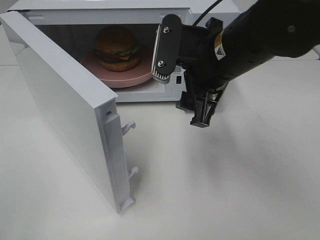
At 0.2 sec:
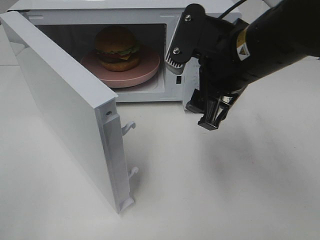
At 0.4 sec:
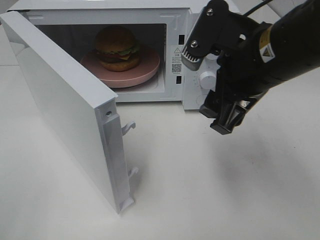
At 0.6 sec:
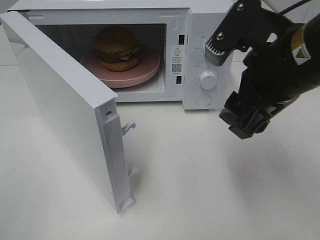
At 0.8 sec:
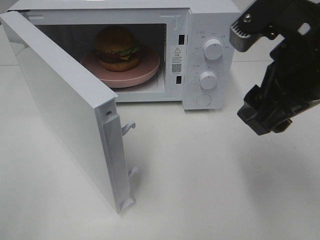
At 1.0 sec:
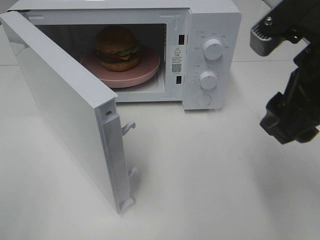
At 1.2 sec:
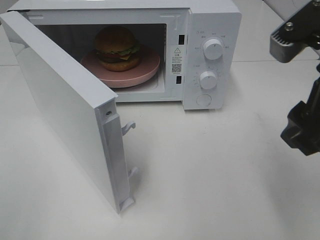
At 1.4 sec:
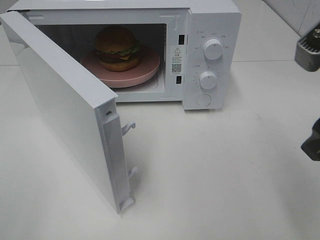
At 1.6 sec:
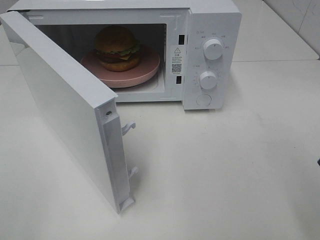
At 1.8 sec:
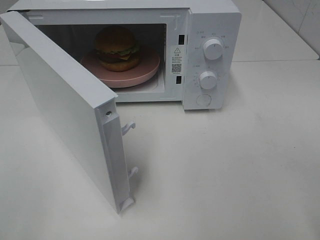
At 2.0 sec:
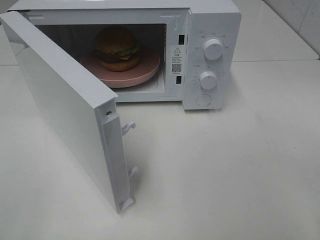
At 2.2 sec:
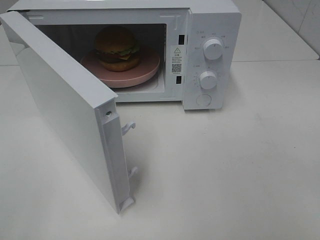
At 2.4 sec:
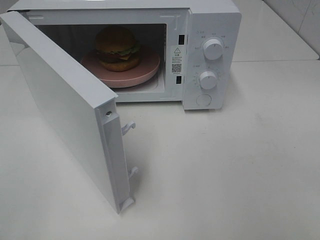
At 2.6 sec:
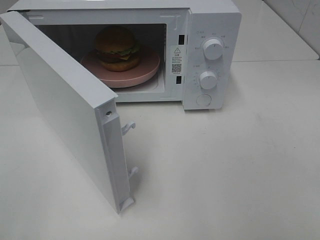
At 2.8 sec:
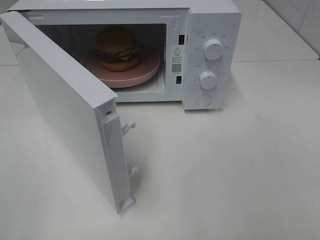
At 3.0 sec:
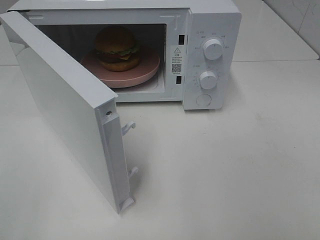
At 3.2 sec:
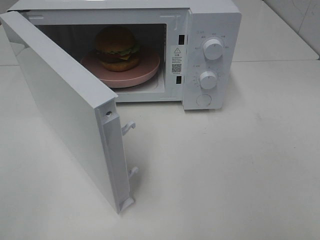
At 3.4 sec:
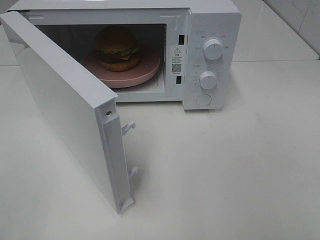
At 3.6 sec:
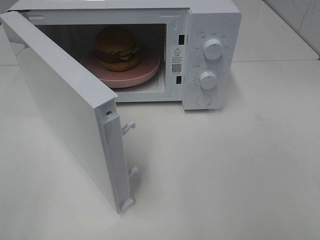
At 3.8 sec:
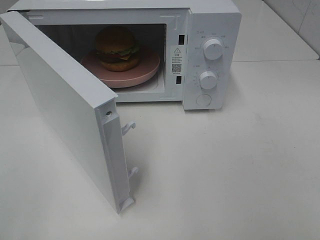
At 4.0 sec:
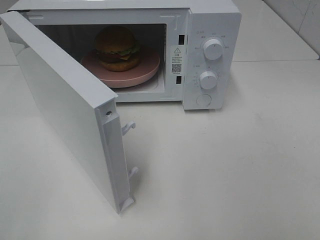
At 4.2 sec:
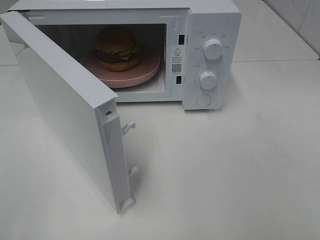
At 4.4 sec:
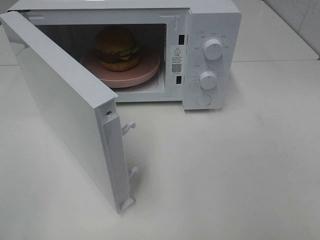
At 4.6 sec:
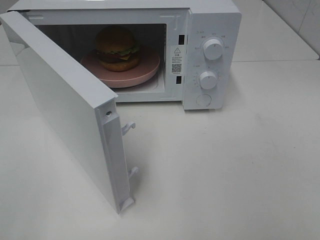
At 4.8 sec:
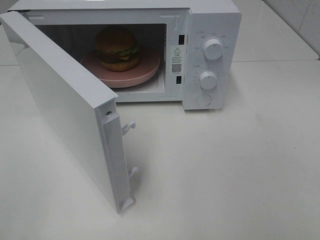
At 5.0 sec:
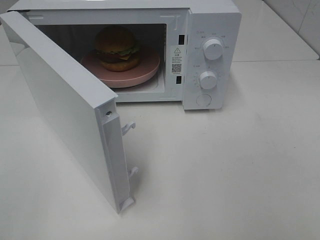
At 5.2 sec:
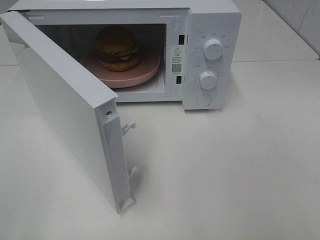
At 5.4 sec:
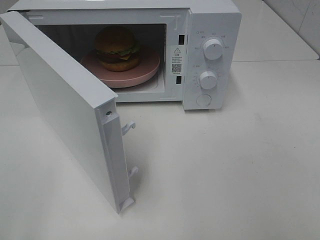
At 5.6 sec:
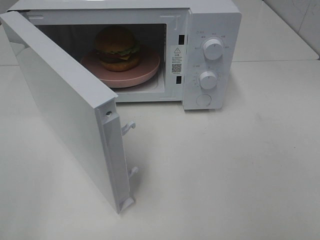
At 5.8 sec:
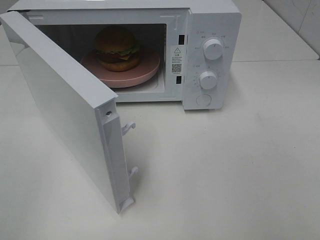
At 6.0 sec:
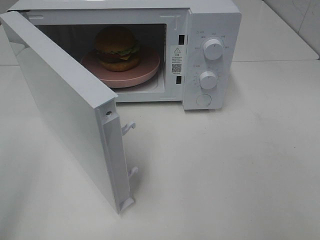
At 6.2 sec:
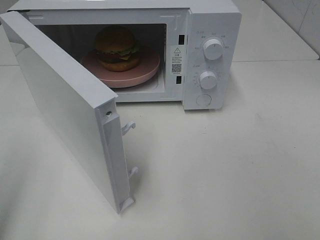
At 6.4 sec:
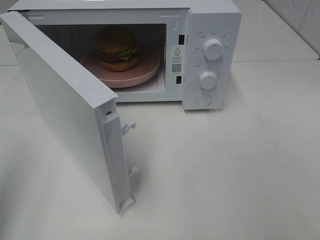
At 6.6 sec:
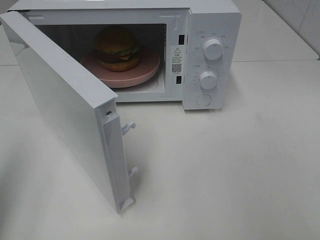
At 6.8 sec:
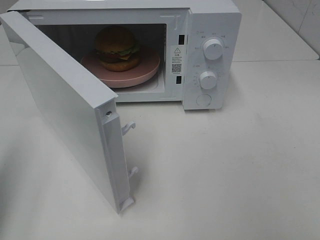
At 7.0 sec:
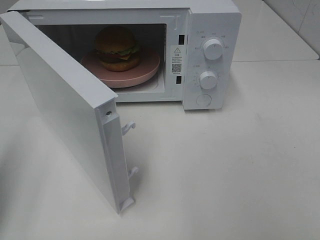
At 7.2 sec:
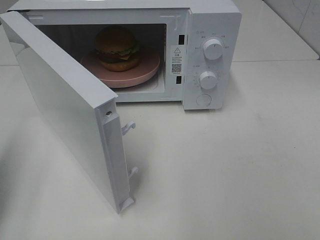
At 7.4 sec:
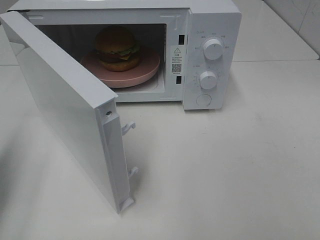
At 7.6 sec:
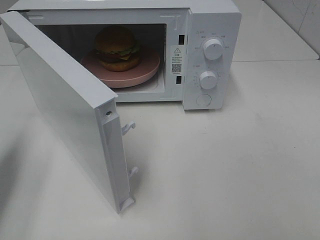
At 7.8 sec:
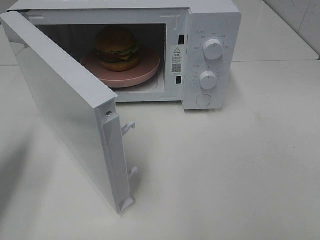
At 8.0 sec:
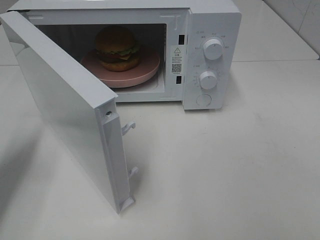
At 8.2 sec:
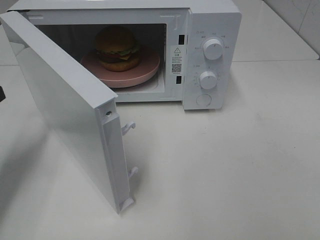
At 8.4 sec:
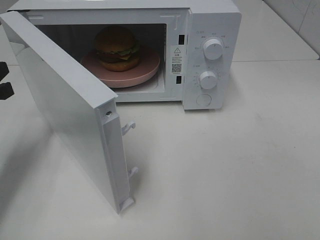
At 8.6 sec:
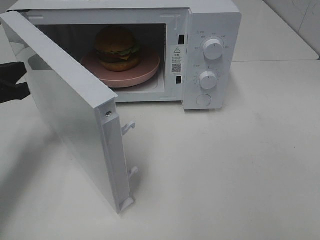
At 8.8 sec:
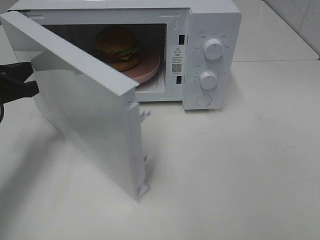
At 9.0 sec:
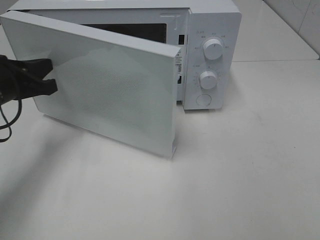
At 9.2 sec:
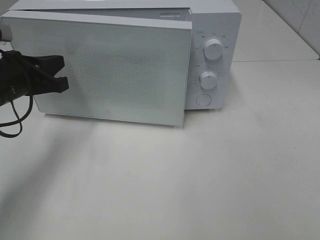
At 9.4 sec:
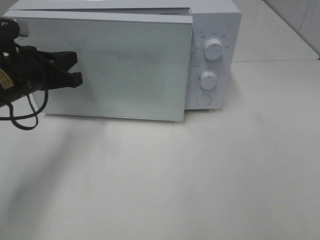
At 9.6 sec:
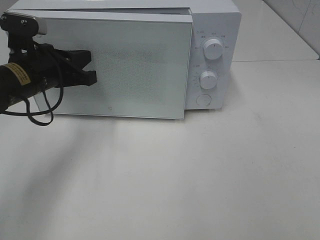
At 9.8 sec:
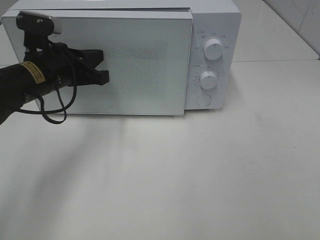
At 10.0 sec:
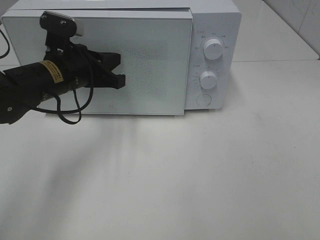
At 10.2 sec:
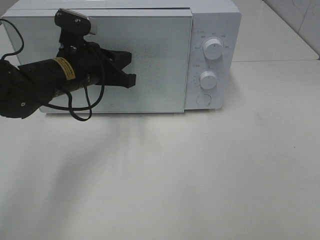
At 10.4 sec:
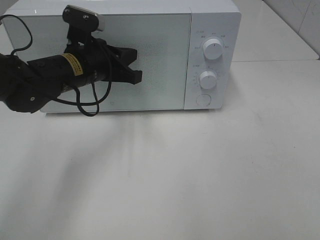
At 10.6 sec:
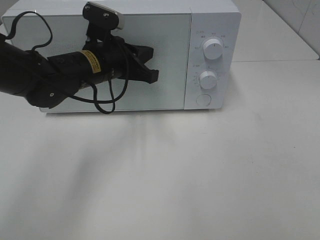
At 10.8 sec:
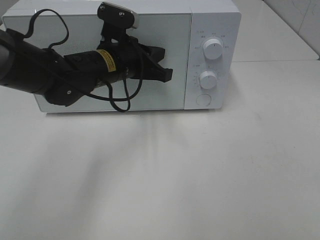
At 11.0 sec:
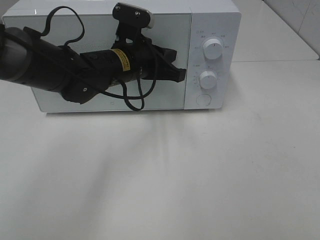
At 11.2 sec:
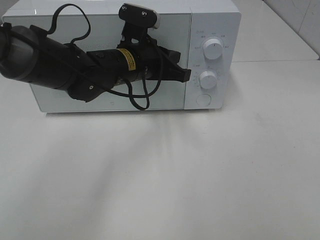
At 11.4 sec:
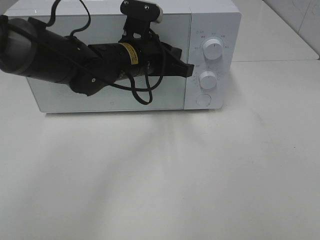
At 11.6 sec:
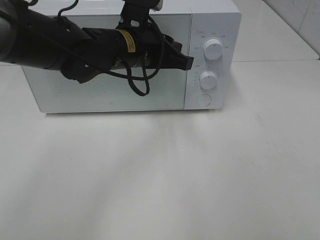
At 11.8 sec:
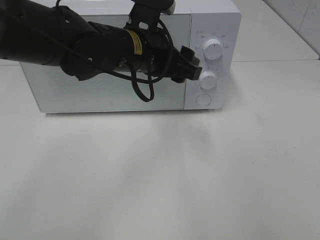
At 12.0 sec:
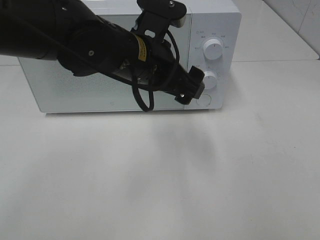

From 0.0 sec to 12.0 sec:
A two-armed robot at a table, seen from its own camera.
Task of the whole recording: Heat the burger.
Step, from 0.0 sec to 11.2 sec: Left hand: close the microwave door.
From 0.0 sec to 1.6 sec: The right gripper travels backward and to the right by about 20 cm.
From 3.0 sec to 4.4 sec: Both grippers stay put.
From 6.0 sec to 7.6 sec: The left gripper goes roughly 20 cm forward and downward, and closes its fingers.
From 7.6 sec to 9.0 sec: The left gripper is displaced forward and to the right by some 15 cm.
From 9.0 sec to 10.4 sec: The left gripper moves to the right and forward, about 15 cm.
From 10.4 sec to 12.0 sec: The left gripper travels to the right, backward and upward by some 15 cm, and opens its fingers.

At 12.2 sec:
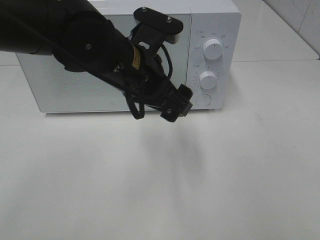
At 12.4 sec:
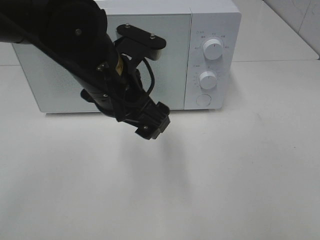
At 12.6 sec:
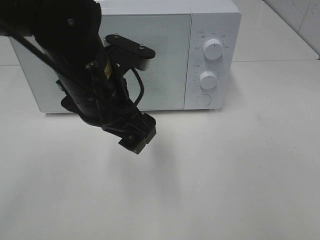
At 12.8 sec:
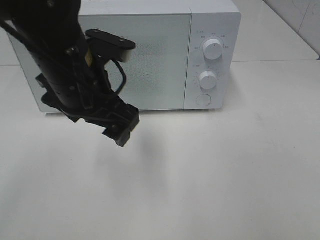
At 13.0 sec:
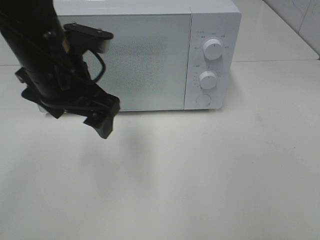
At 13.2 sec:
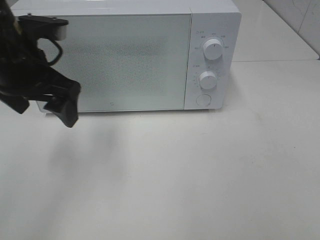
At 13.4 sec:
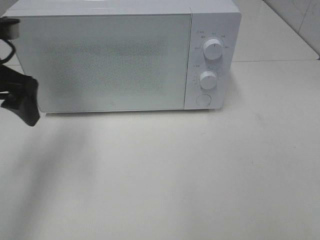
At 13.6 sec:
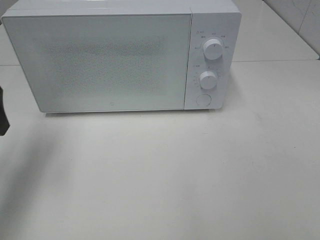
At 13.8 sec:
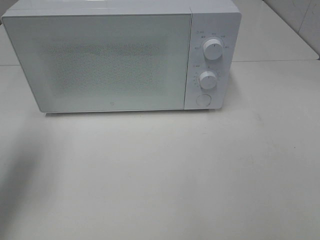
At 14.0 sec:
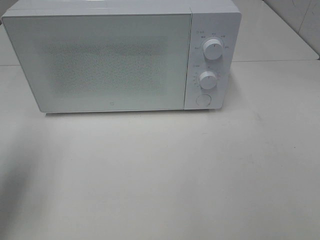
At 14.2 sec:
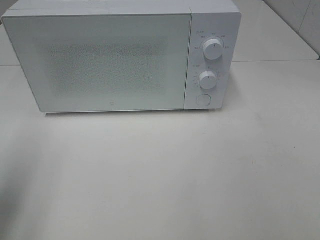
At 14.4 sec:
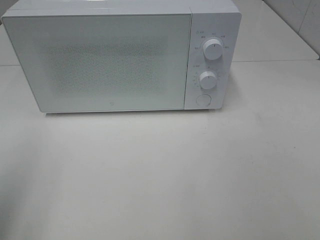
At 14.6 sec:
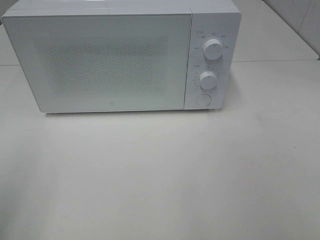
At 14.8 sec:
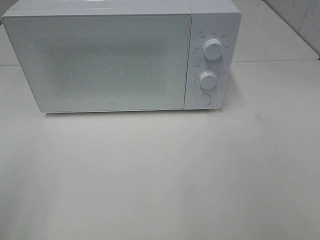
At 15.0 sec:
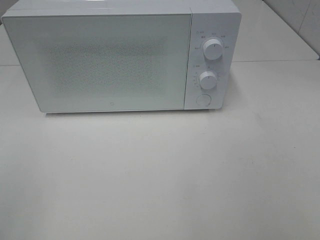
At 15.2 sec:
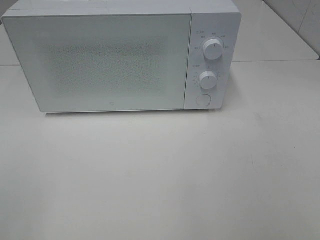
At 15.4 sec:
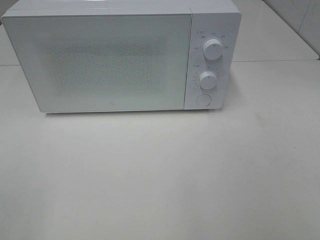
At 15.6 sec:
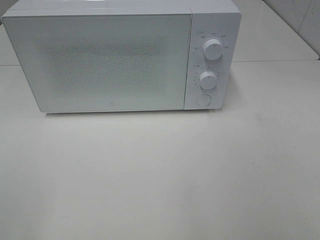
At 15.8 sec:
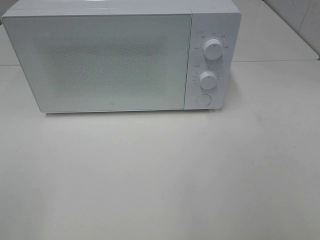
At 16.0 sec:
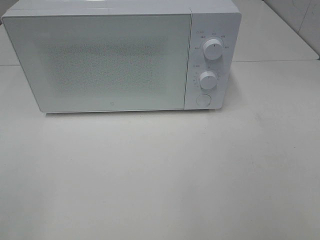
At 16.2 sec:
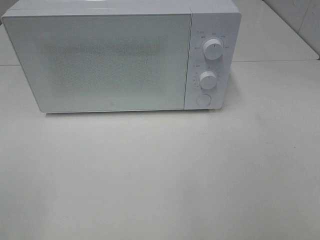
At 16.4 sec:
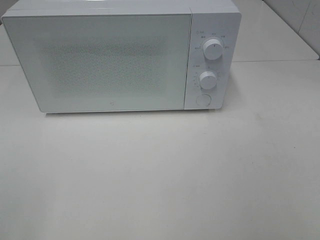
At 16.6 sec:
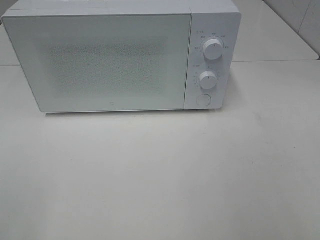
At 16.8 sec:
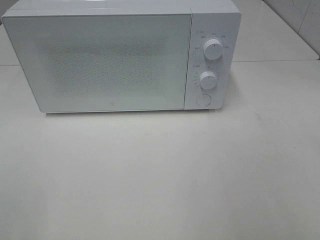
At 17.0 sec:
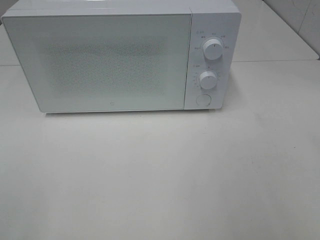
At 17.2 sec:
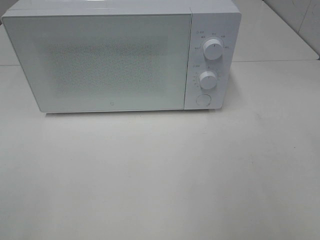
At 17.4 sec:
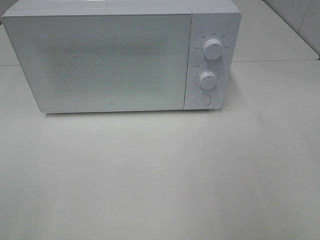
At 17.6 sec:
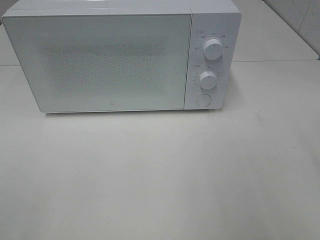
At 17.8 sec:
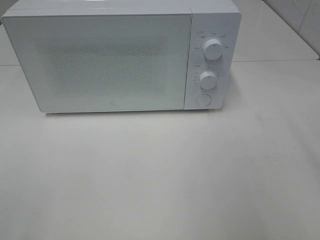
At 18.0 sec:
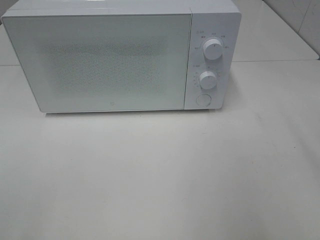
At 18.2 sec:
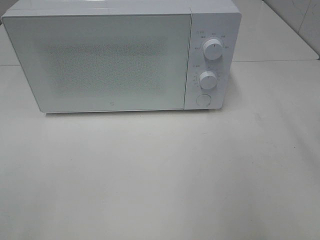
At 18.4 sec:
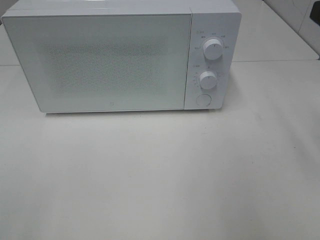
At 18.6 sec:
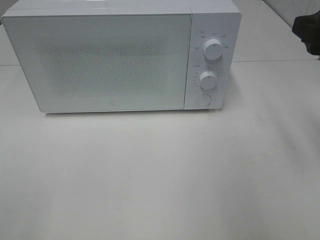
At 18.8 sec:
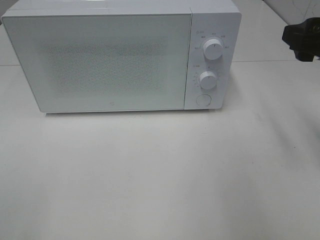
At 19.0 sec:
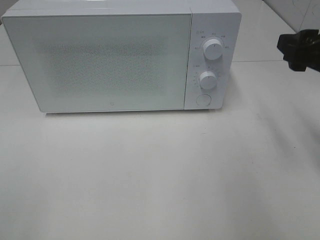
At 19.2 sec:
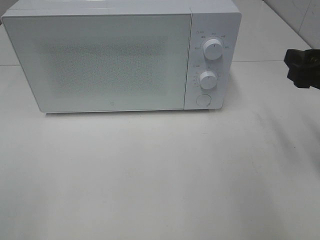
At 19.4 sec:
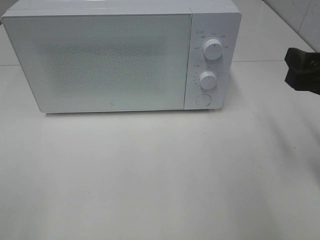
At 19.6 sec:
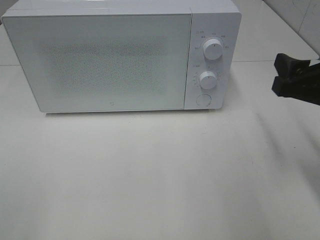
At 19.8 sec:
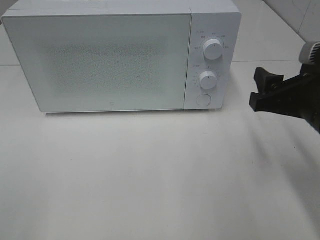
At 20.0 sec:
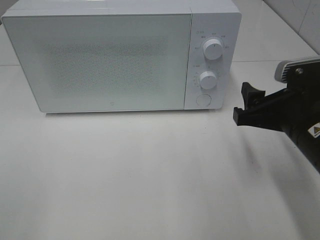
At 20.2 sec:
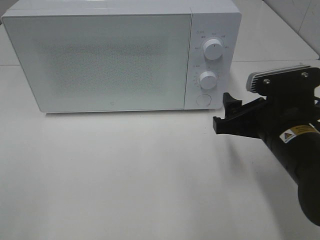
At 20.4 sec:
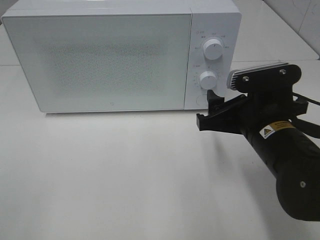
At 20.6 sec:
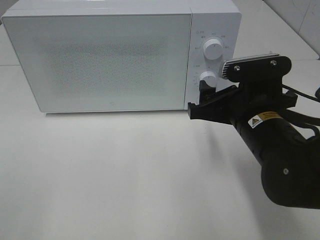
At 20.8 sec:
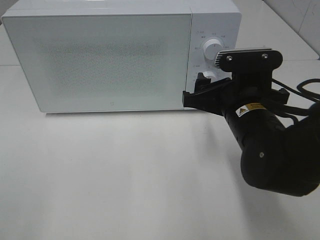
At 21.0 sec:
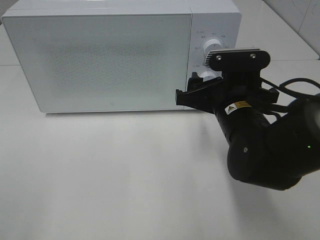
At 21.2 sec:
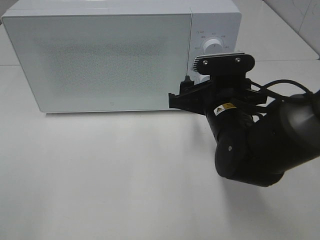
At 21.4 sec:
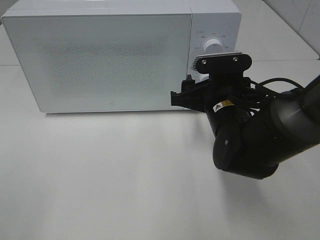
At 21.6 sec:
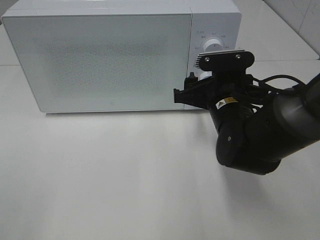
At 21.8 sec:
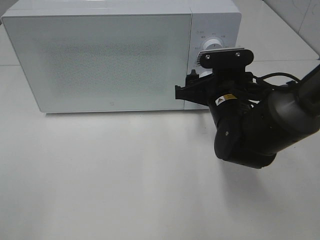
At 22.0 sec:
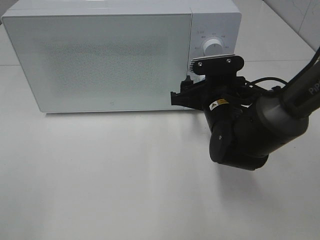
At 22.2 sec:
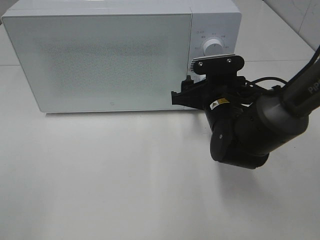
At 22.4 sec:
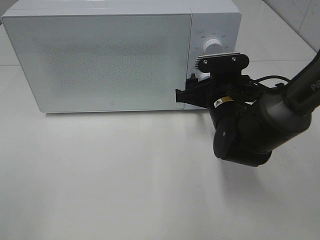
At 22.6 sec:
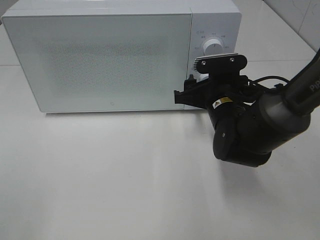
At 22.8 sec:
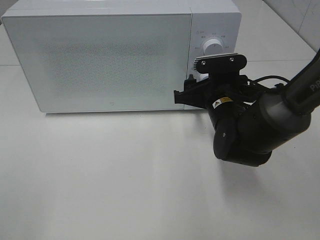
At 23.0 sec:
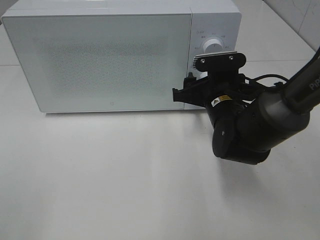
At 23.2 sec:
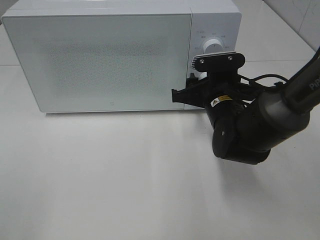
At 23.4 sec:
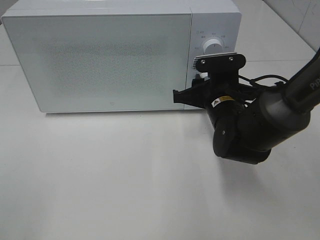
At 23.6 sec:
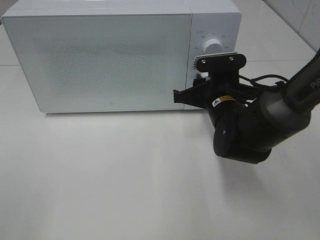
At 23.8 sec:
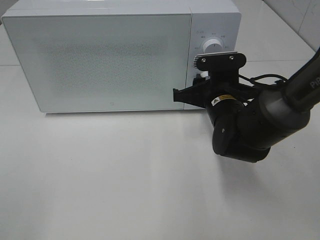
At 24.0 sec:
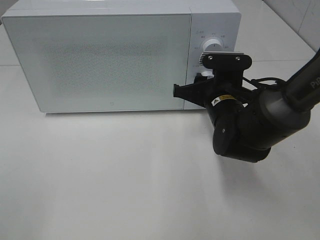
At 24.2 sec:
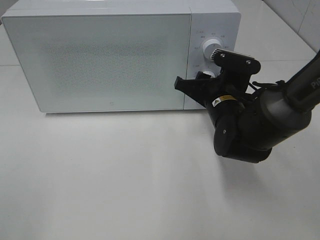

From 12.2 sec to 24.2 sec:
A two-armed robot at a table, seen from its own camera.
Task of the whole recording: Heat the burger.
From 12.2 sec to 13.8 sec: The left gripper goes roughly 25 cm to the left.
From 13.8 sec to 15.2 sec: The left gripper goes about 25 cm backward.
From 18.2 sec to 19.8 sec: The right gripper shifts roughly 15 cm downward and to the left.
From 19.8 sec to 21.2 sec: The right gripper travels to the left, forward and downward by some 15 cm.
From 21.2 sec to 22.6 sec: The right gripper moves some 5 cm.
From 22.6 sec to 24.2 sec: The right gripper closes its fingers.
